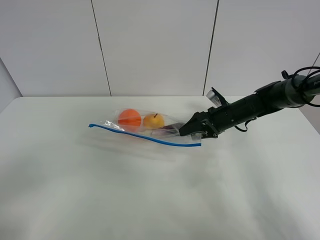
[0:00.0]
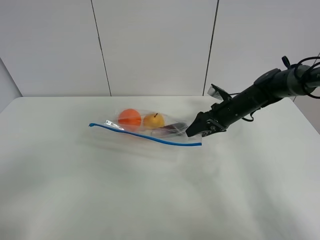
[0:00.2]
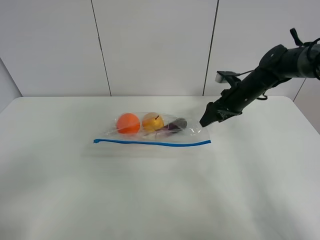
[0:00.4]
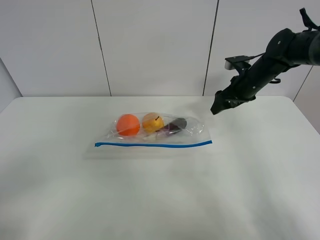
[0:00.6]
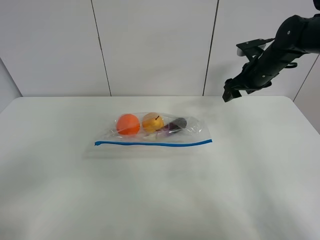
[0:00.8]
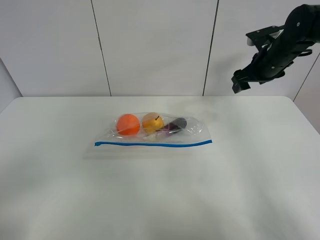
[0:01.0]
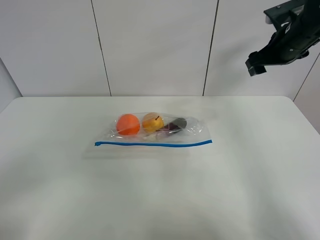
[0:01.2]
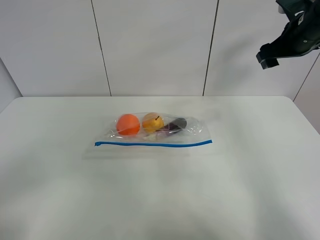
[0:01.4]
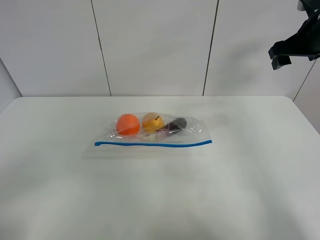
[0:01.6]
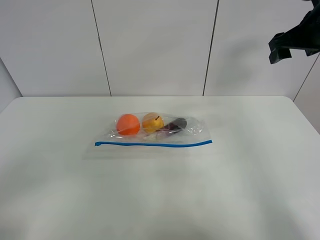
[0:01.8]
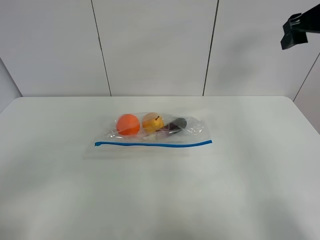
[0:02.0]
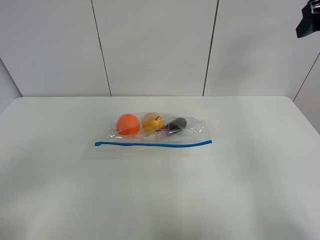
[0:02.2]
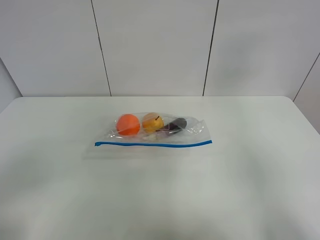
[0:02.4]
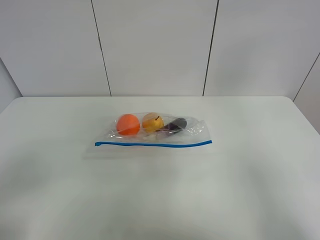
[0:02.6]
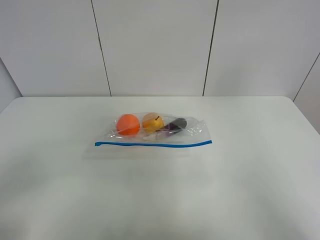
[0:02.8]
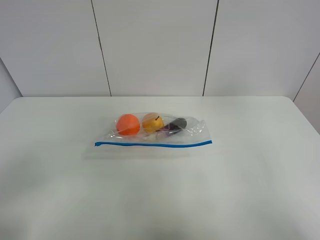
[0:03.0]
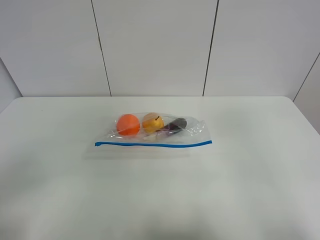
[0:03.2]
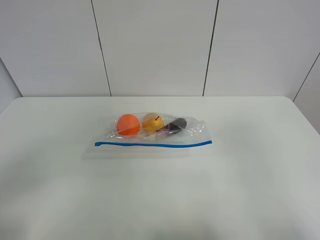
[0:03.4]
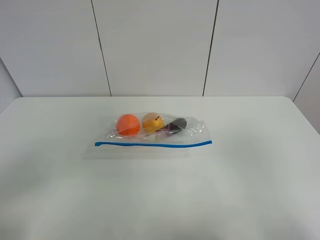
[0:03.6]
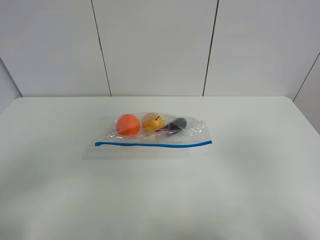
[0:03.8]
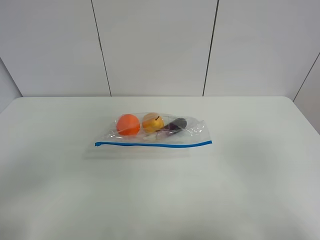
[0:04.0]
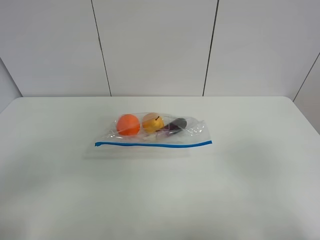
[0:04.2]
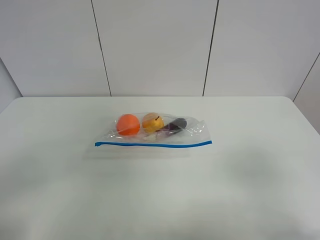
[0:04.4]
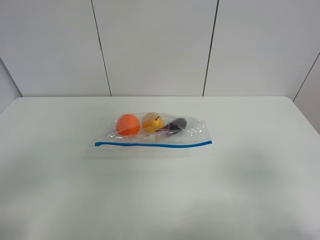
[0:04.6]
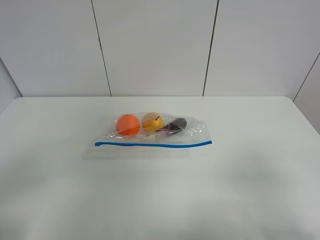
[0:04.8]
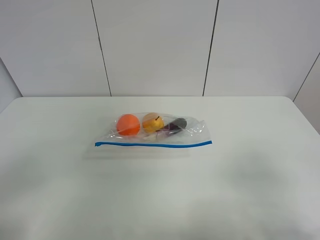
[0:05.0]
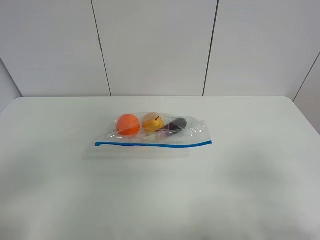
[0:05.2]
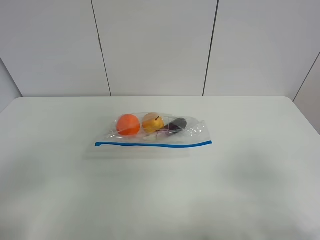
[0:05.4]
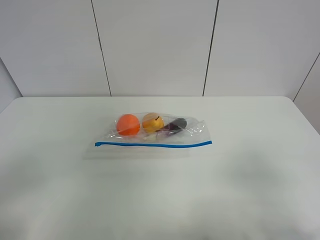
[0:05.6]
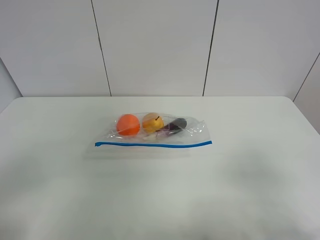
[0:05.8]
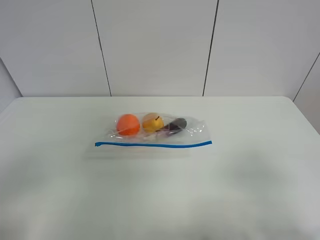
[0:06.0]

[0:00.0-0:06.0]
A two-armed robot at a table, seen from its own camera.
0:00.0 to 0:01.6: The right gripper heads upward and to the right, covering about 25 cm.
0:01.6 to 0:03.0: The right gripper shifts some 30 cm backward and upward.
0:03.0 to 0:04.4: The right gripper goes roughly 20 cm downward and backward.

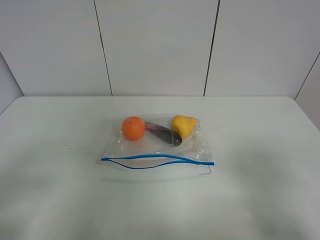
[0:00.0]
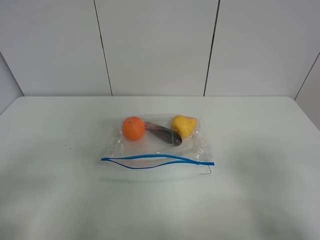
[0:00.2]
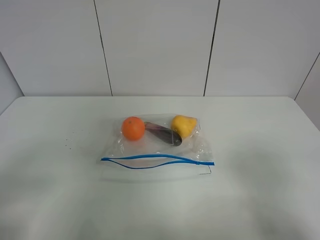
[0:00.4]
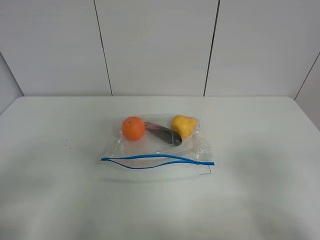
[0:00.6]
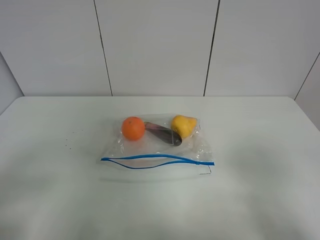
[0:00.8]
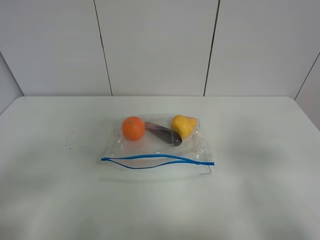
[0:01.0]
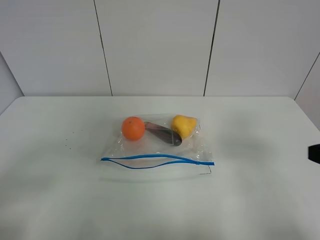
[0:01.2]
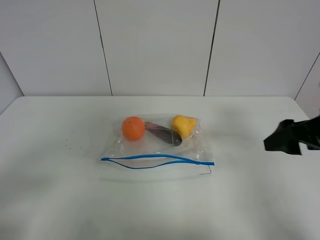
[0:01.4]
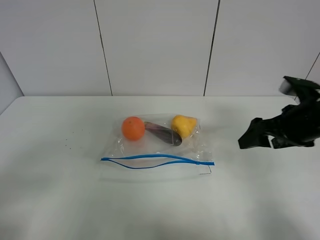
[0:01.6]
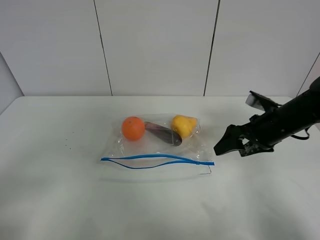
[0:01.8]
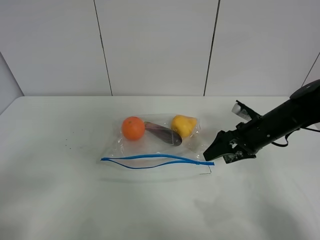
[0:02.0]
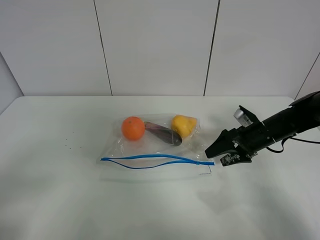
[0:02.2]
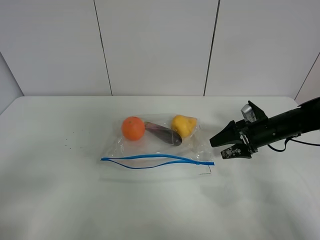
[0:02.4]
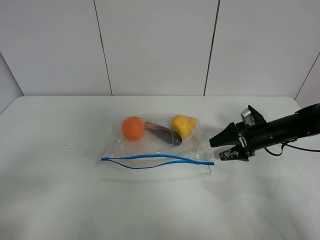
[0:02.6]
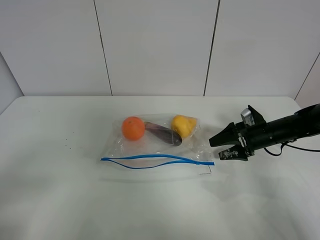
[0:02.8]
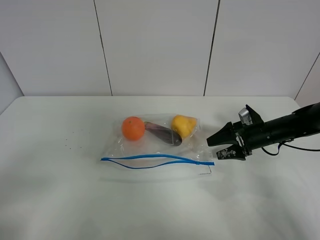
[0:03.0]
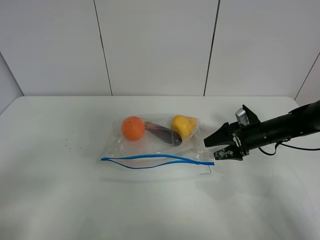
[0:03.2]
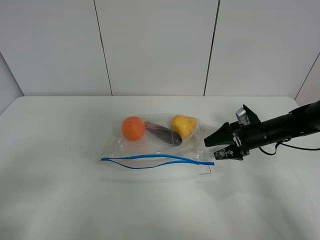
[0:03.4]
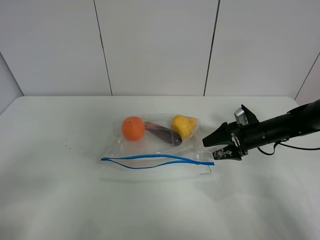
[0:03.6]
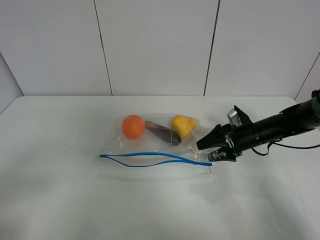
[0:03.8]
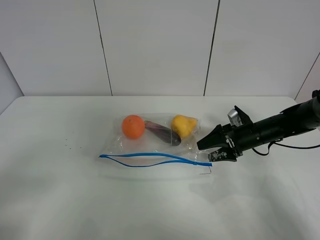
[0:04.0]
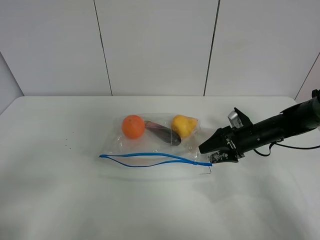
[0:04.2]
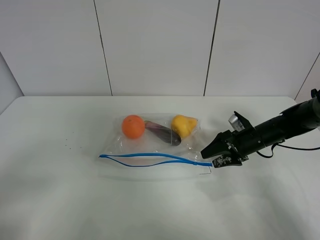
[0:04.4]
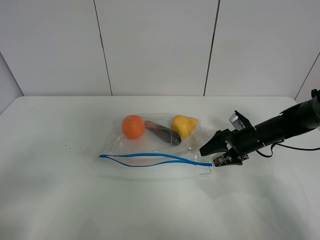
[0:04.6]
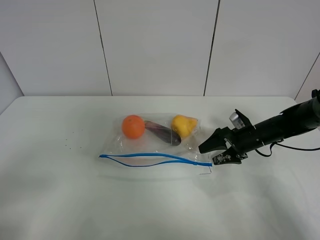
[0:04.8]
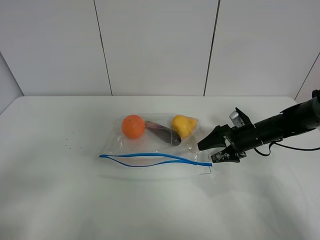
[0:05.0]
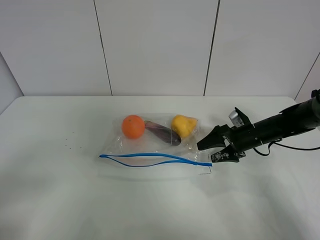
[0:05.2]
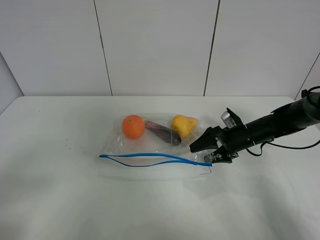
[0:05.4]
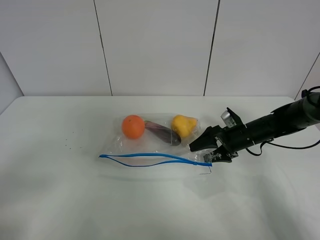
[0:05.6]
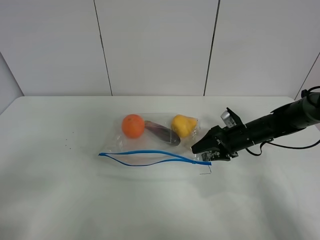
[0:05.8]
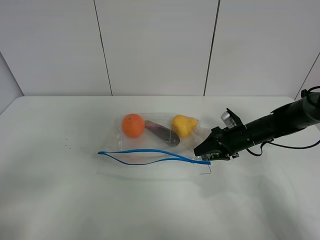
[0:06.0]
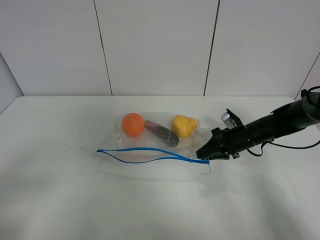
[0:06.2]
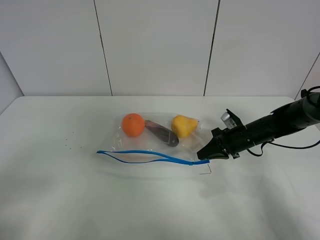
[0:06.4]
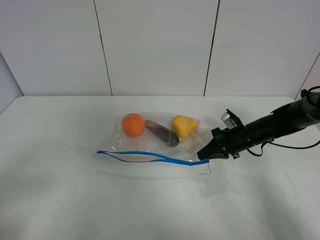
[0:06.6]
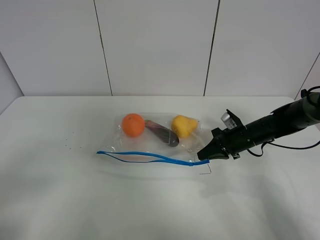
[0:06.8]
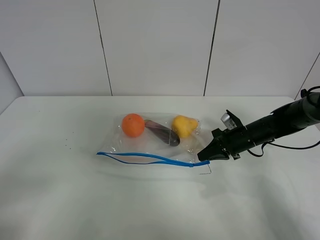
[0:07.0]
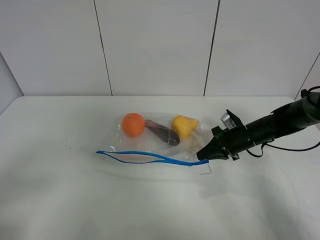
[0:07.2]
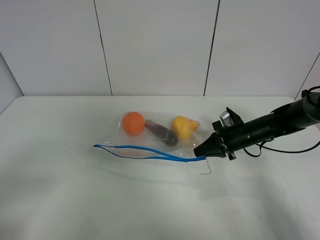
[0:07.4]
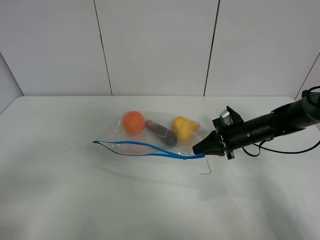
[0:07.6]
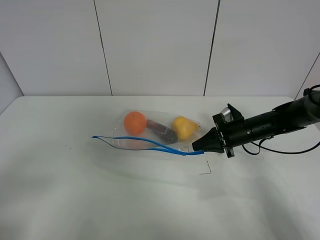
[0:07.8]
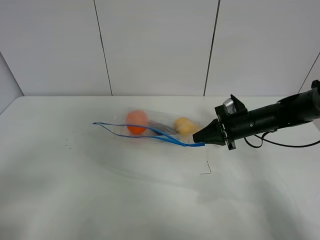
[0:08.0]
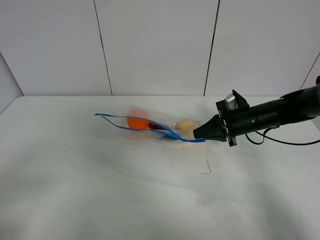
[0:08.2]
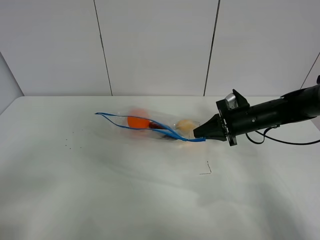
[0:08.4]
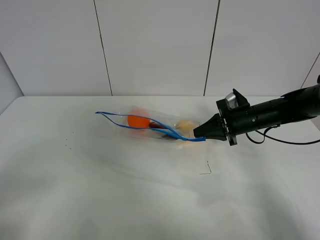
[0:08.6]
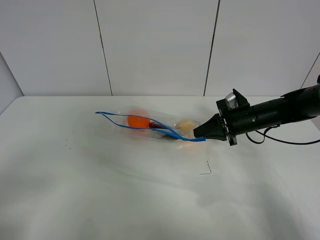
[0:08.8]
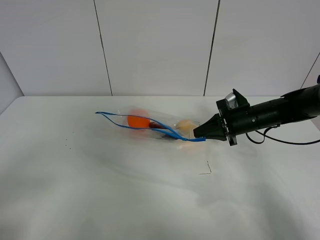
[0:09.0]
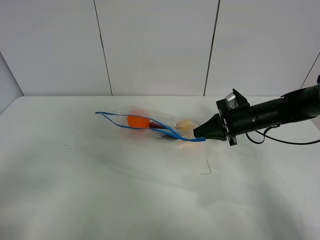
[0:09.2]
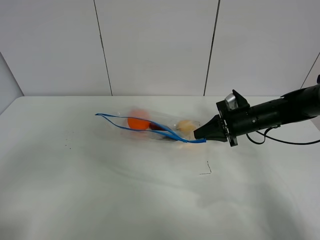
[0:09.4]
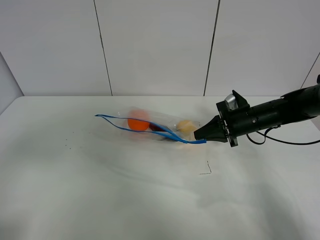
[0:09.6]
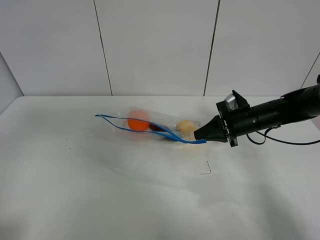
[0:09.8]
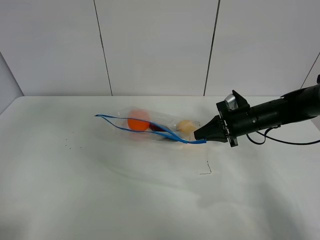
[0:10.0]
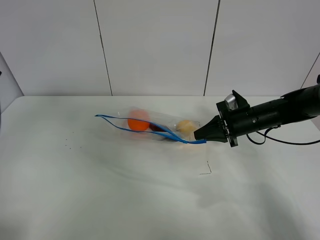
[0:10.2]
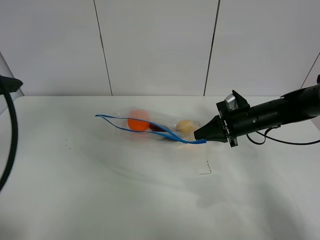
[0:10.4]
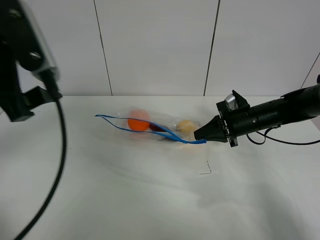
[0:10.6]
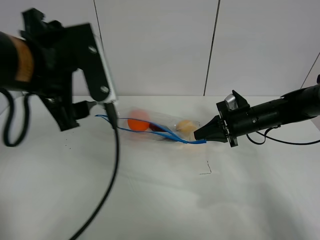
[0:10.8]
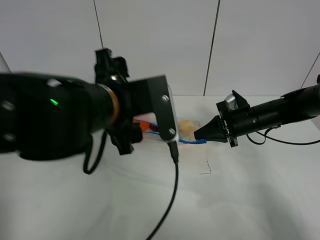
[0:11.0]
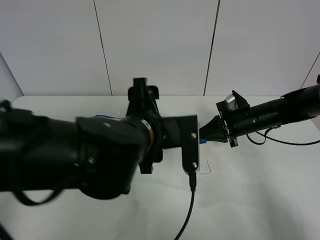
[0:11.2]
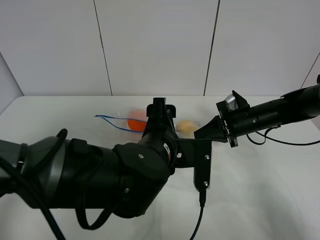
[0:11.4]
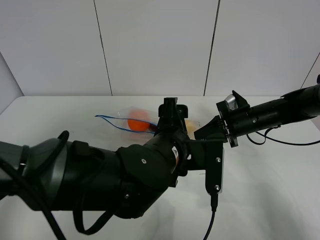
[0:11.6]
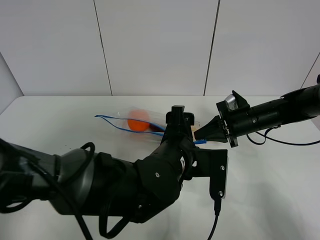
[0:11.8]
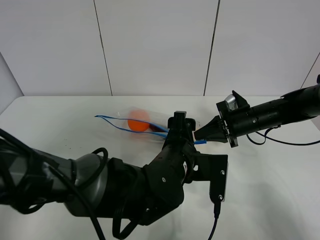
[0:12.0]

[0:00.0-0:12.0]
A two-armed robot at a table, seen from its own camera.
Step, 0:00.0 to 0:06.4: Grasp the fruit bag with right gripper.
Step, 0:06.6 to 0:08.8: Lift the fruit bag with your right gripper.
0:00.0 to 0:01.6: The right gripper is displaced forward by approximately 25 cm.
0:01.6 to 0:03.0: The right gripper is displaced downward and forward by some 15 cm.
0:03.0 to 0:04.4: The grippers stay close to where they were, moving slightly.
0:04.4 to 0:06.0: The right gripper closes its fingers.
0:06.0 to 0:07.6: The right gripper closes.
0:07.6 to 0:09.0: The grippers move only a little.
0:09.0 to 0:10.4: The left gripper goes about 20 cm forward and upward.
0:10.4 to 0:12.0: The left gripper is displaced to the right and downward by about 40 cm.

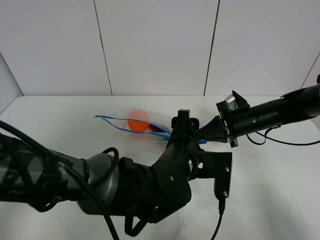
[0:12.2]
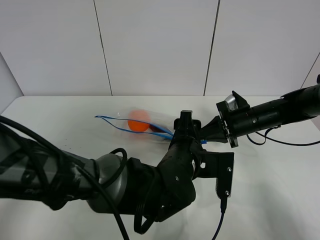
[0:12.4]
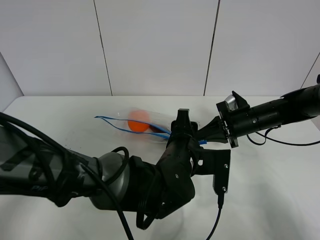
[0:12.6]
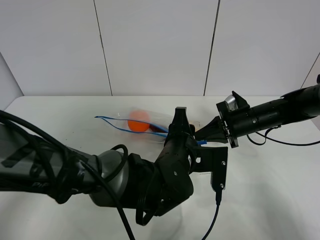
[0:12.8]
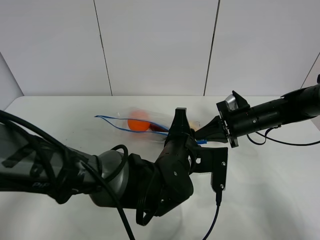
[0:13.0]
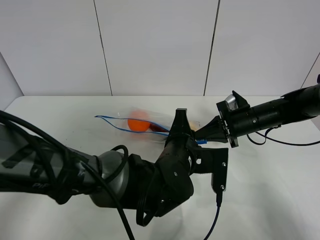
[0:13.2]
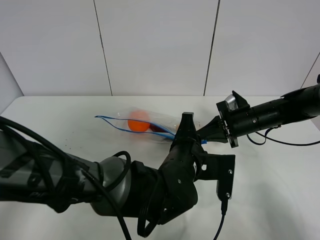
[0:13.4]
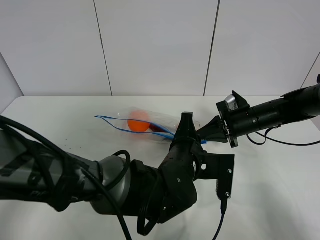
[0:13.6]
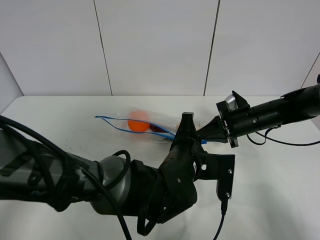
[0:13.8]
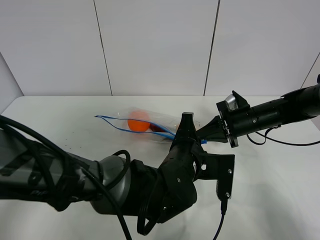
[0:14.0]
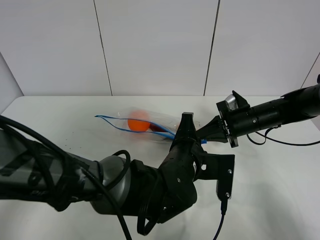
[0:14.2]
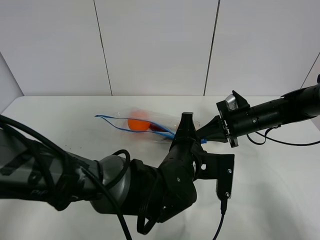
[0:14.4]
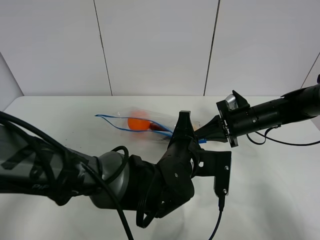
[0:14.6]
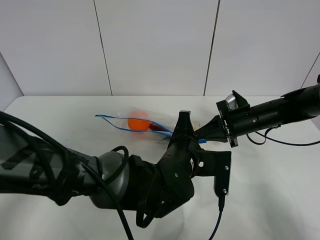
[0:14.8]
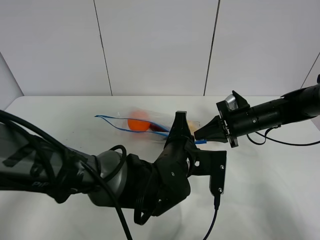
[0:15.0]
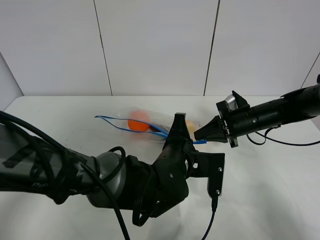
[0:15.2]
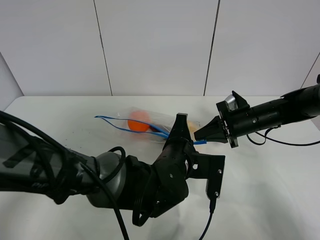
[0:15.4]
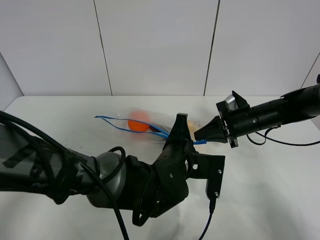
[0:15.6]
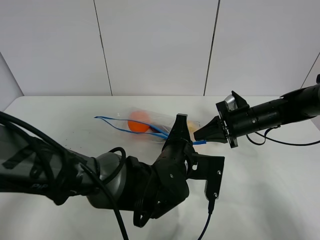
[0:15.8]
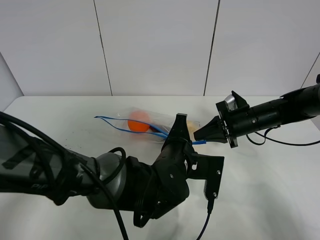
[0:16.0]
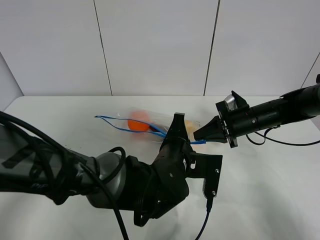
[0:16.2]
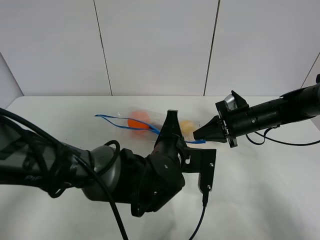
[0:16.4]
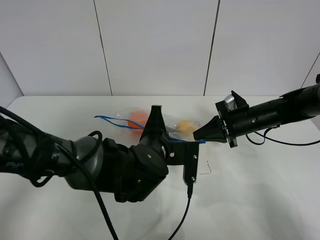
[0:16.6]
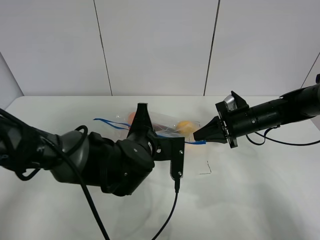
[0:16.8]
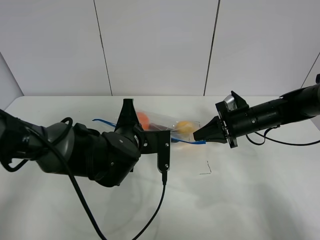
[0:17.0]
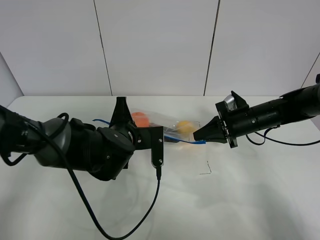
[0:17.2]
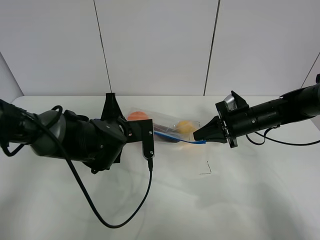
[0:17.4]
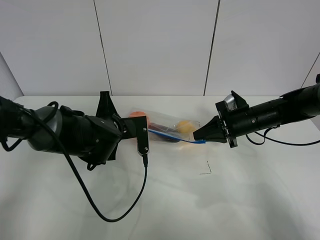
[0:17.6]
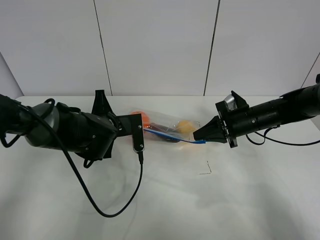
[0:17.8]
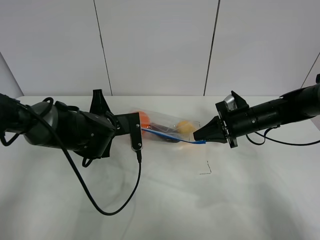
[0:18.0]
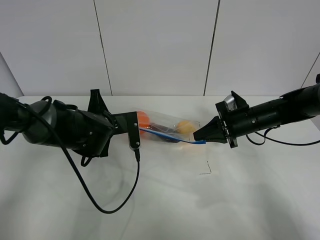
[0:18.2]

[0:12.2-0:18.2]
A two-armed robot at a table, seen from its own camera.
0:12.2 to 0:13.8: The left gripper closes.
0:13.8 to 0:15.2: The grippers stay close to where they were, moving slightly.
0:15.2 to 0:16.6: The left gripper changes place by roughly 5 cm.
0:16.6 to 0:18.2: The left gripper is displaced to the left and forward by approximately 15 cm.
